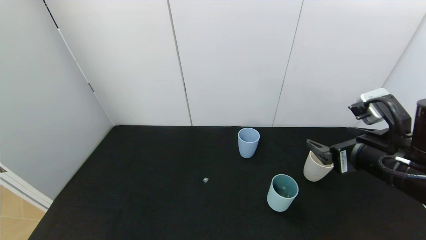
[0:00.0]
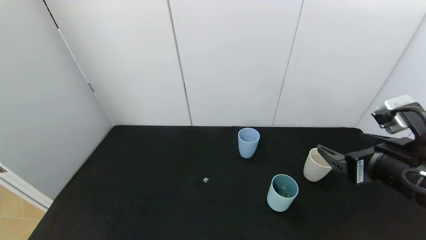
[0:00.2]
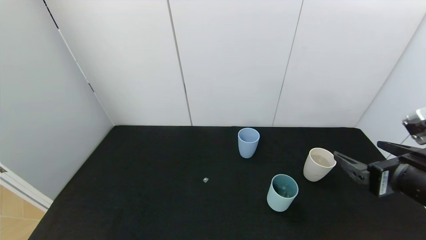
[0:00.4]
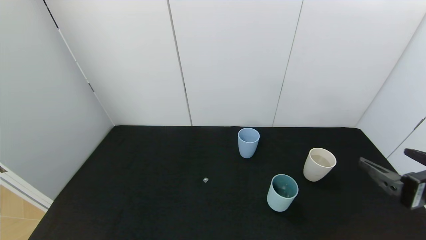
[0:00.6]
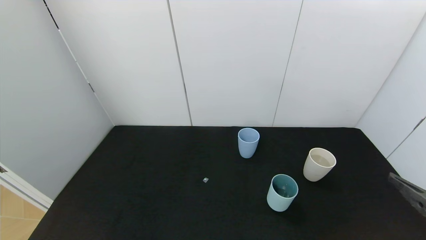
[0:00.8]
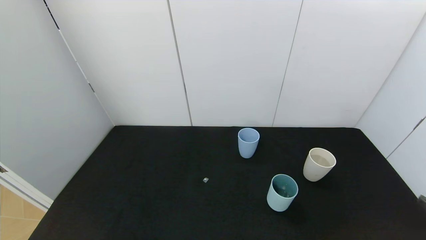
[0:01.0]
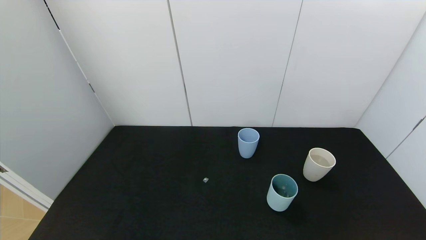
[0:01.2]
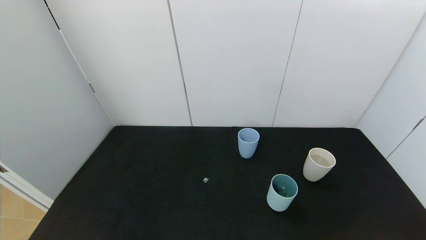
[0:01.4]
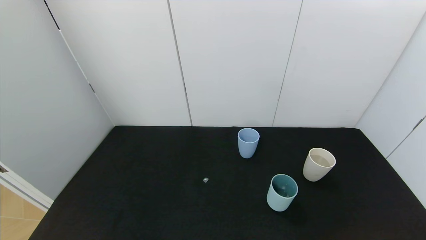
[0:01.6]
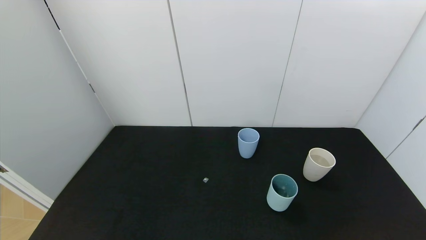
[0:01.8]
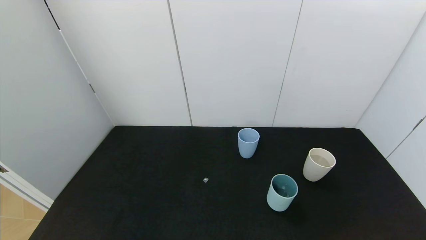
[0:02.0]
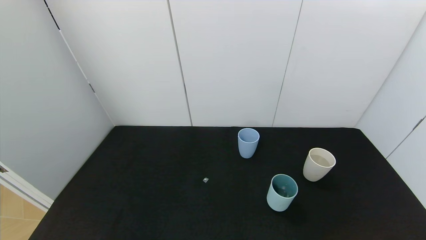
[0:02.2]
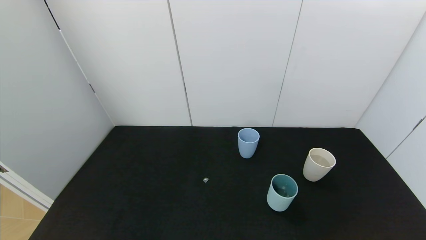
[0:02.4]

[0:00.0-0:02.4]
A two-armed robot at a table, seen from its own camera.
Task of the whole recording: use the gripper to pour the water into the other two cups on black table.
0:00.0 to 0:01.2: The right gripper travels backward and to the right by about 20 cm.
